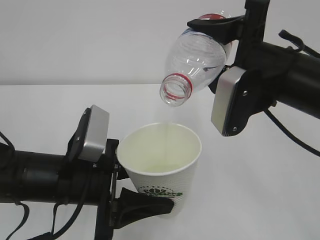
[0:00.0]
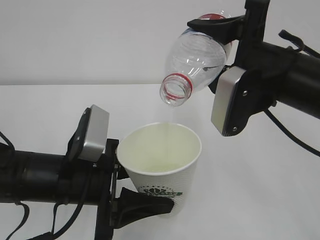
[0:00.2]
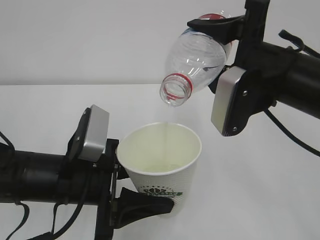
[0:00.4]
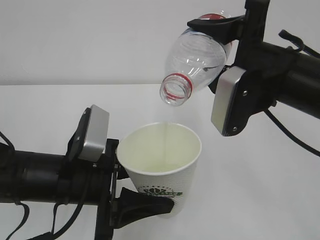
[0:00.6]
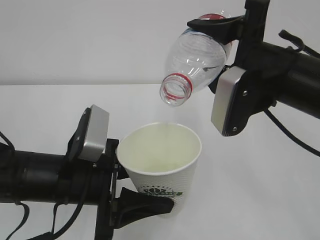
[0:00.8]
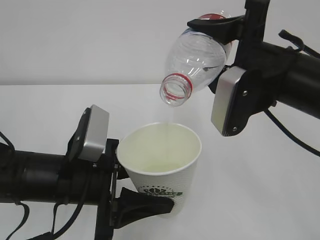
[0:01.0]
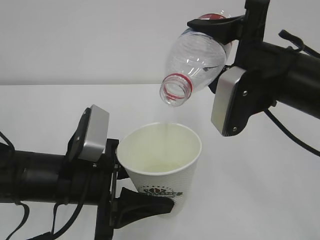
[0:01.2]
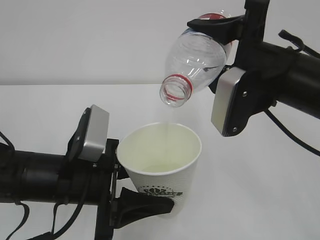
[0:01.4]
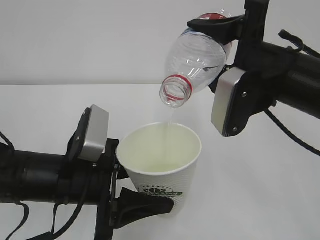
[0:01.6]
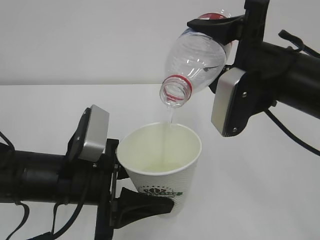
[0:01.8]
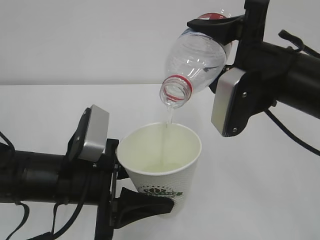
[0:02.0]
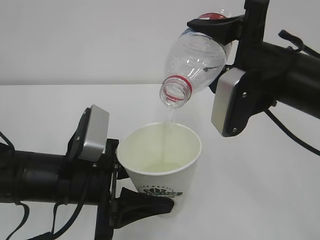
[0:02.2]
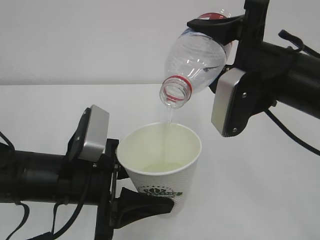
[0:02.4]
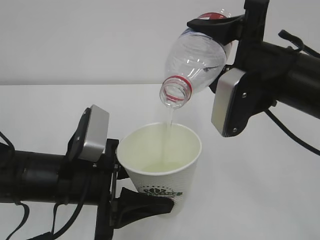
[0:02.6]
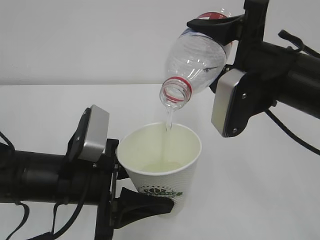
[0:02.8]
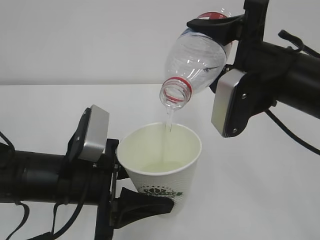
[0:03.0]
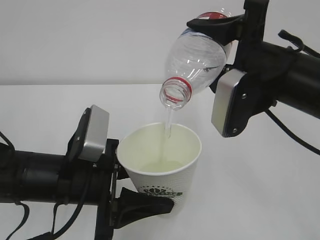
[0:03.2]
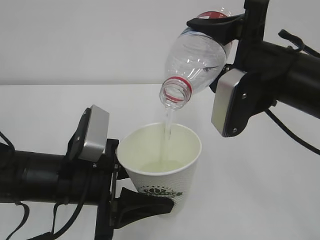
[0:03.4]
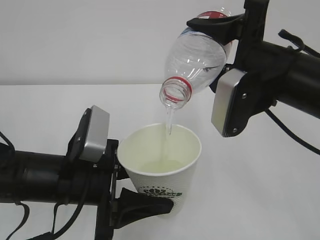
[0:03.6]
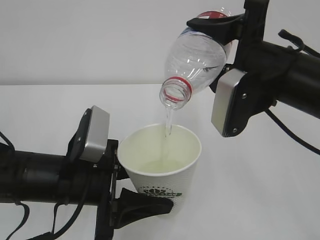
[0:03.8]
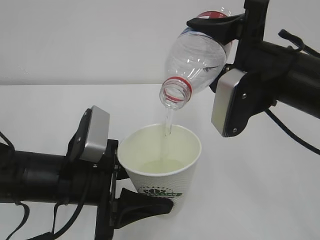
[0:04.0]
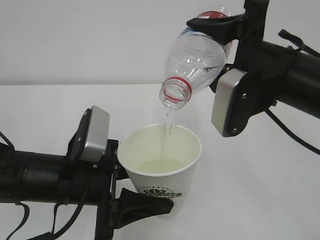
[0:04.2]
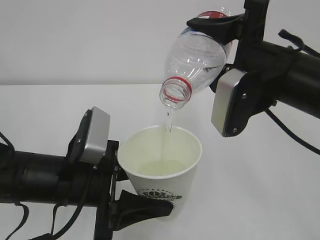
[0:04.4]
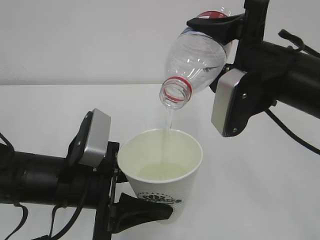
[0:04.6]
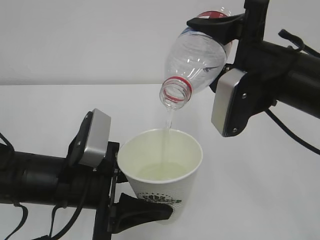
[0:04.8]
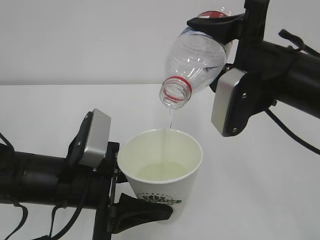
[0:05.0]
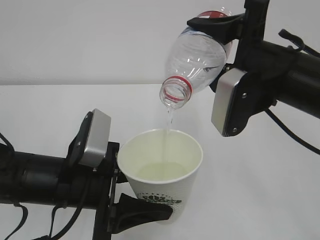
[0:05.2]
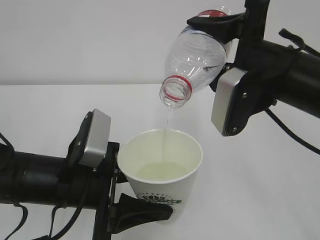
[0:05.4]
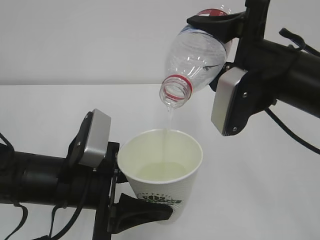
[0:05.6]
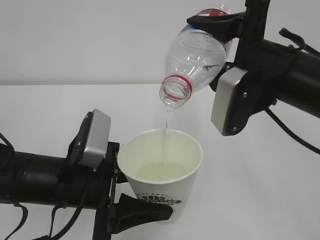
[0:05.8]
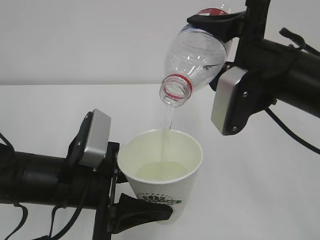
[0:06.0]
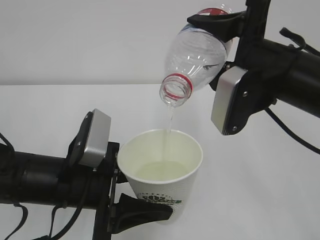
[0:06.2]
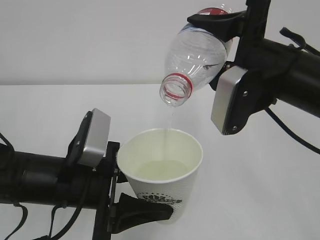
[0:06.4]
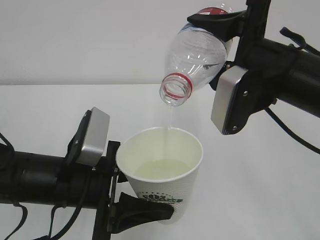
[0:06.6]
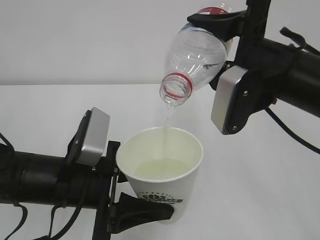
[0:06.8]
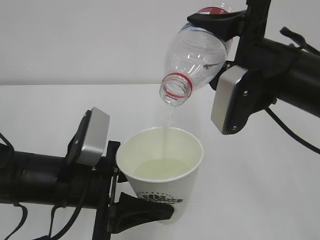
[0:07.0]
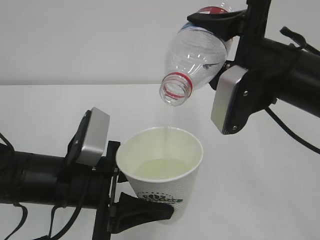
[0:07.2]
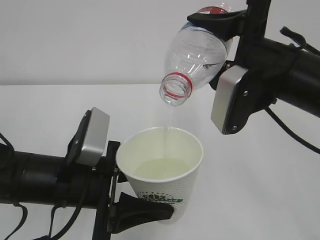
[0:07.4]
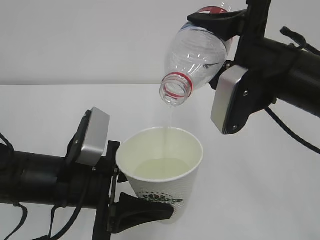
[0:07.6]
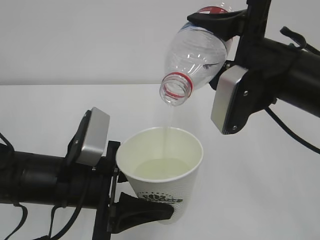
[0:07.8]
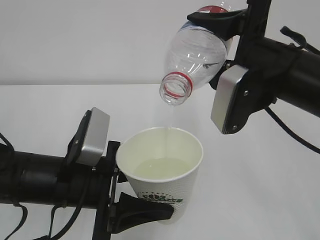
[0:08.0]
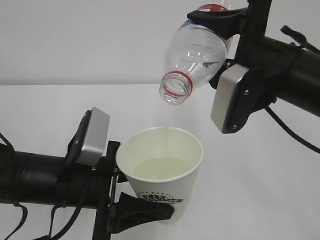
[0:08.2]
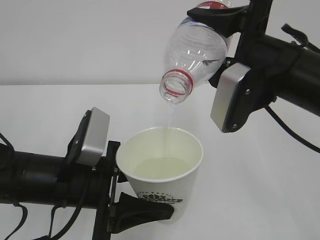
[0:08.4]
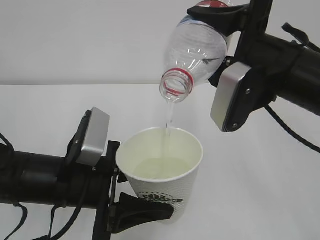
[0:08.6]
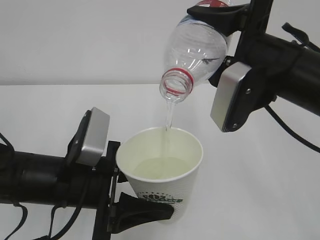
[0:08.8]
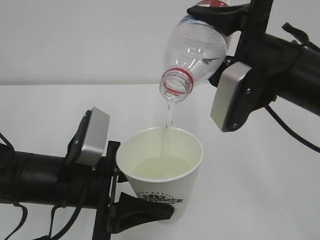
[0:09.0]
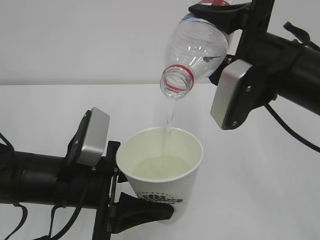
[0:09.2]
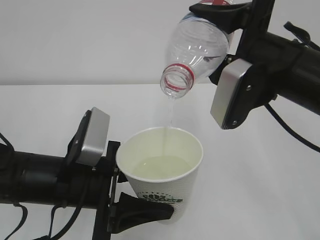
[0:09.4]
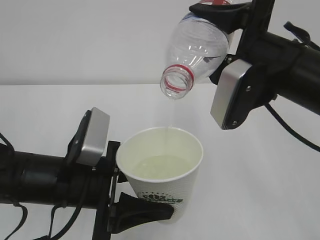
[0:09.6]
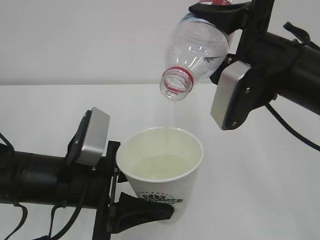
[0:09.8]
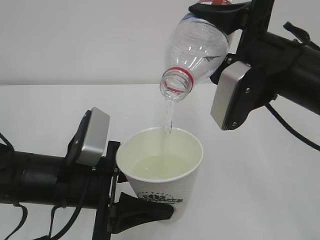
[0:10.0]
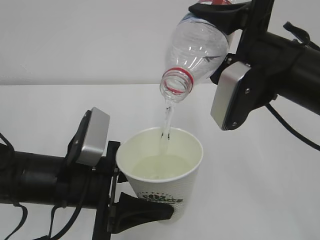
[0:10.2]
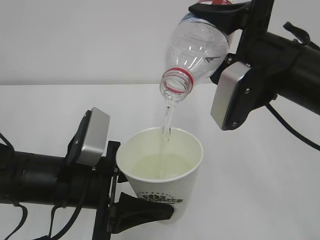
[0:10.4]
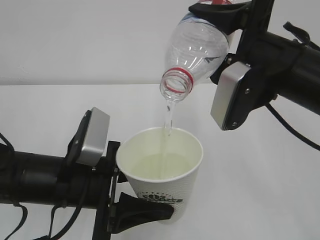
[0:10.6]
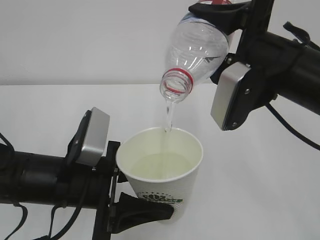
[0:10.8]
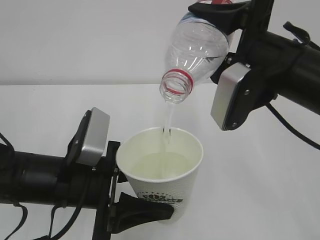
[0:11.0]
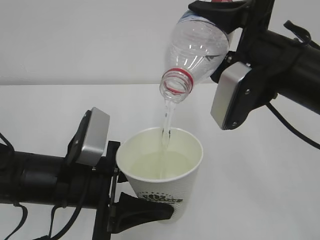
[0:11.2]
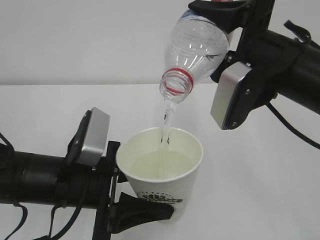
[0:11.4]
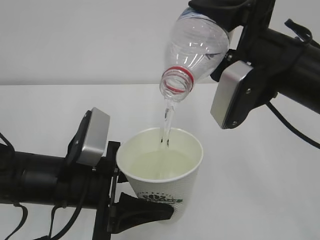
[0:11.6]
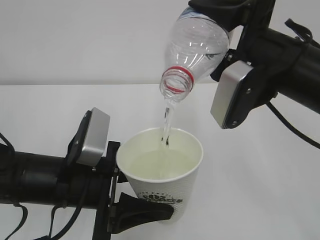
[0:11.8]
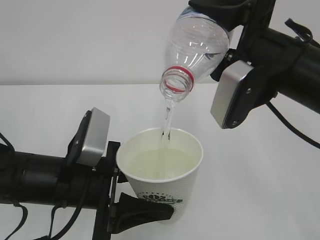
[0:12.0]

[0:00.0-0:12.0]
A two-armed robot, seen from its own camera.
0:00.0 to 0:07.6: Both grippers stay put.
0:07.6 to 0:10.4: Neither gripper changes place.
0:10.4 to 0:12.0: Both grippers stay about where they are.

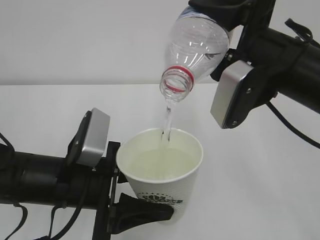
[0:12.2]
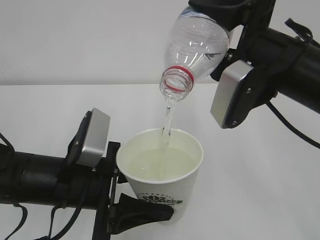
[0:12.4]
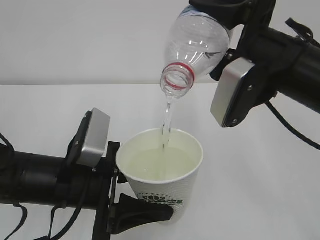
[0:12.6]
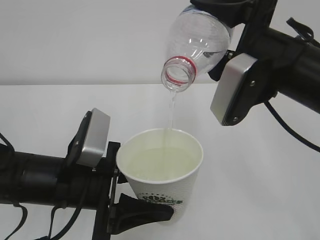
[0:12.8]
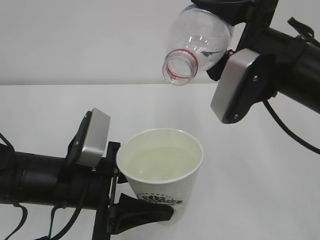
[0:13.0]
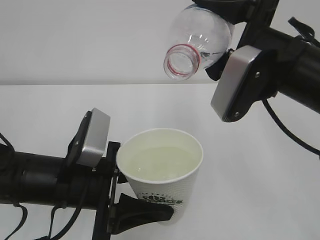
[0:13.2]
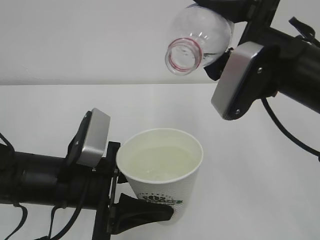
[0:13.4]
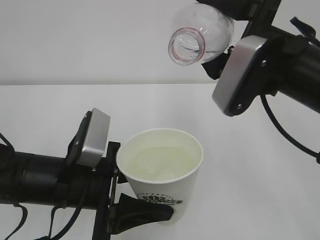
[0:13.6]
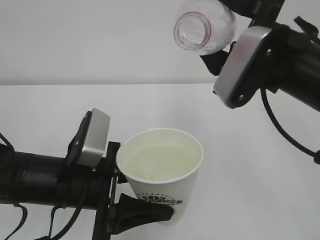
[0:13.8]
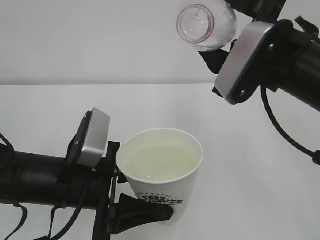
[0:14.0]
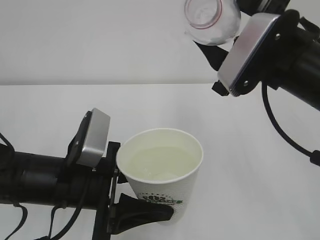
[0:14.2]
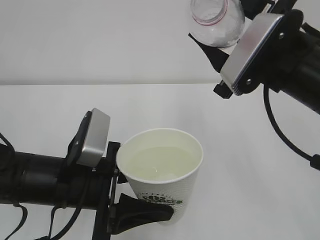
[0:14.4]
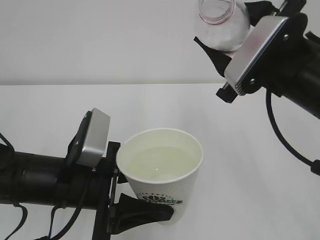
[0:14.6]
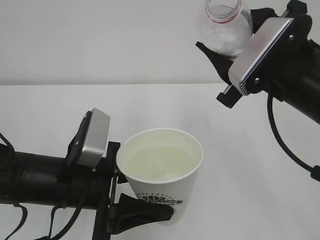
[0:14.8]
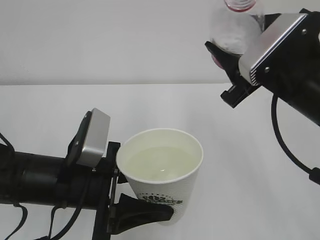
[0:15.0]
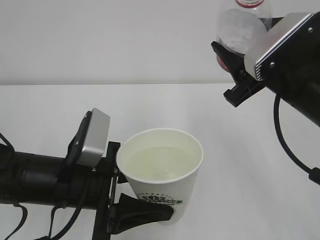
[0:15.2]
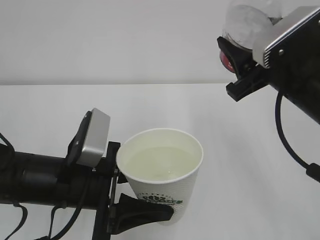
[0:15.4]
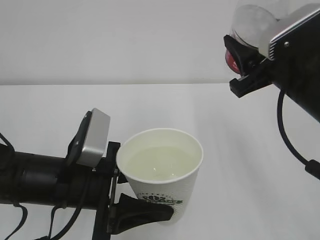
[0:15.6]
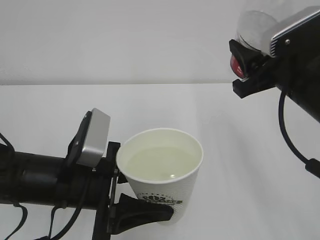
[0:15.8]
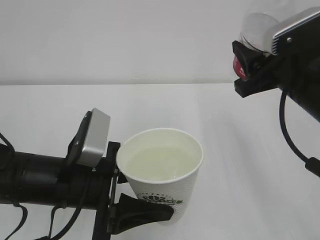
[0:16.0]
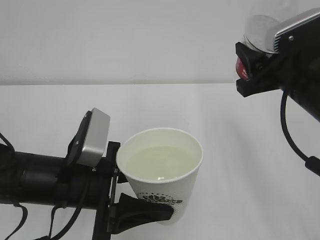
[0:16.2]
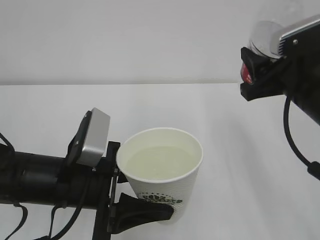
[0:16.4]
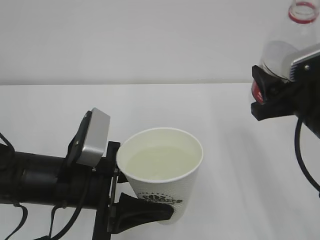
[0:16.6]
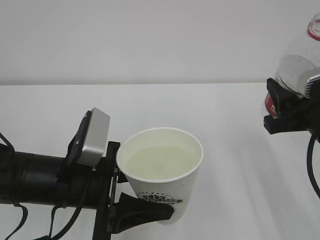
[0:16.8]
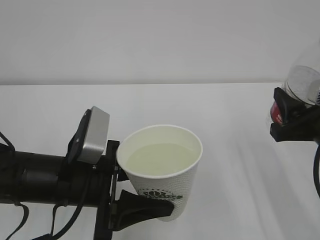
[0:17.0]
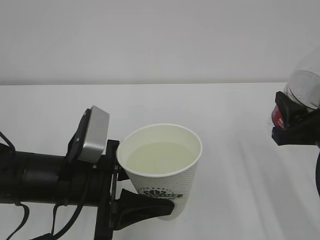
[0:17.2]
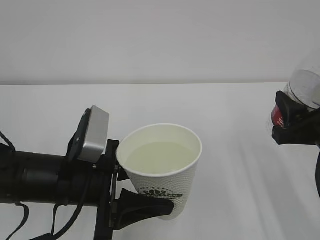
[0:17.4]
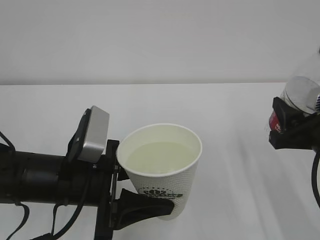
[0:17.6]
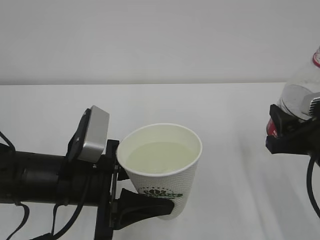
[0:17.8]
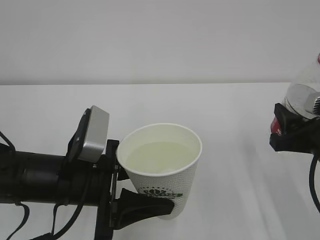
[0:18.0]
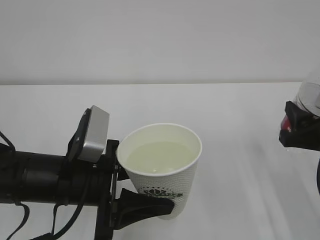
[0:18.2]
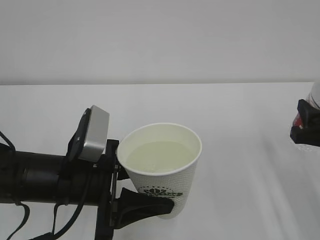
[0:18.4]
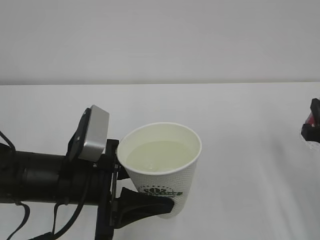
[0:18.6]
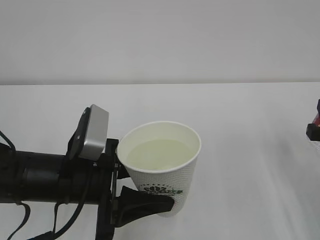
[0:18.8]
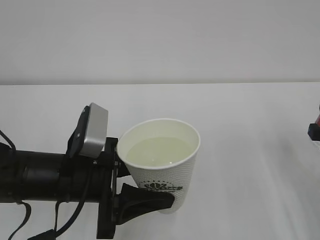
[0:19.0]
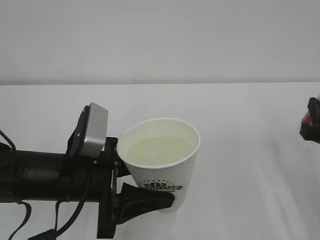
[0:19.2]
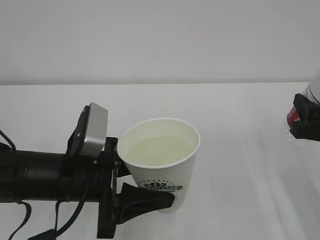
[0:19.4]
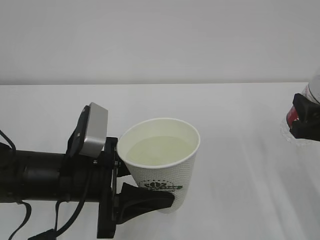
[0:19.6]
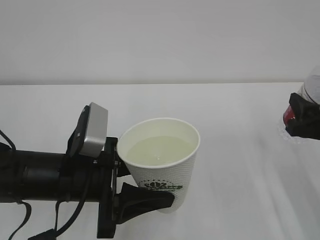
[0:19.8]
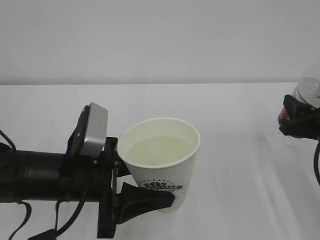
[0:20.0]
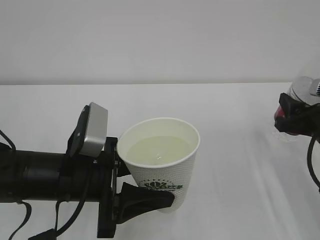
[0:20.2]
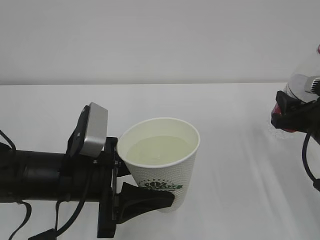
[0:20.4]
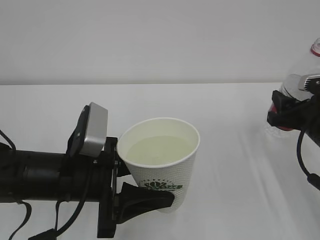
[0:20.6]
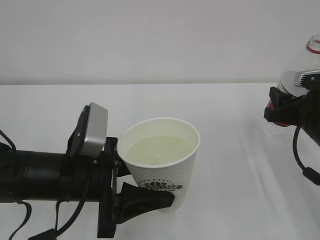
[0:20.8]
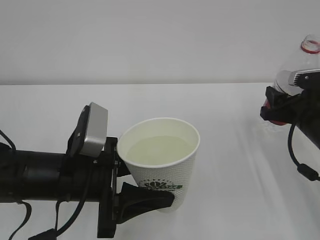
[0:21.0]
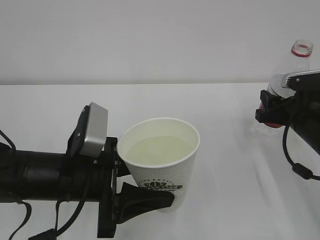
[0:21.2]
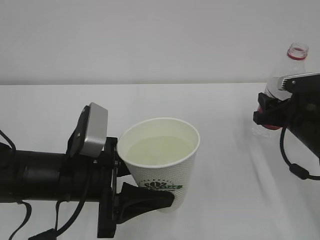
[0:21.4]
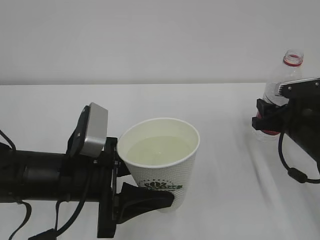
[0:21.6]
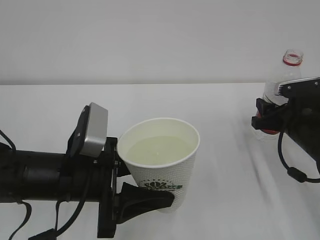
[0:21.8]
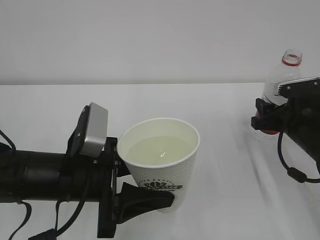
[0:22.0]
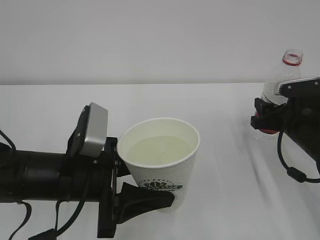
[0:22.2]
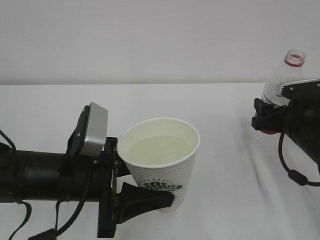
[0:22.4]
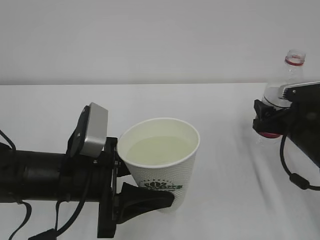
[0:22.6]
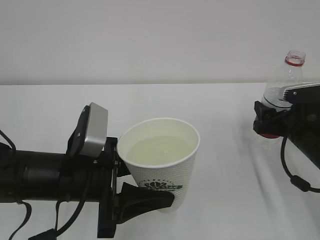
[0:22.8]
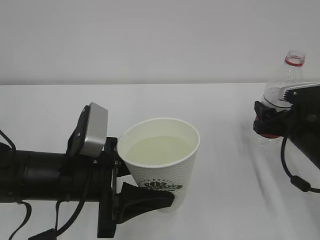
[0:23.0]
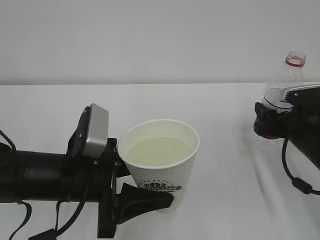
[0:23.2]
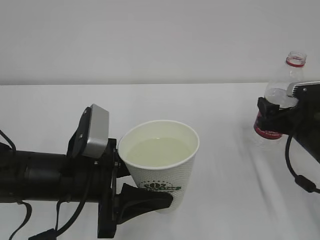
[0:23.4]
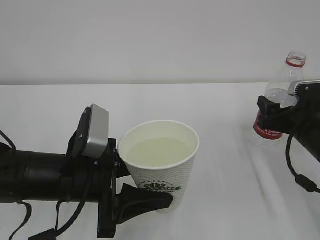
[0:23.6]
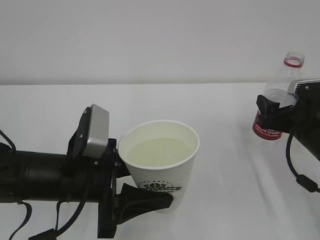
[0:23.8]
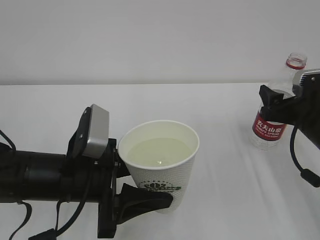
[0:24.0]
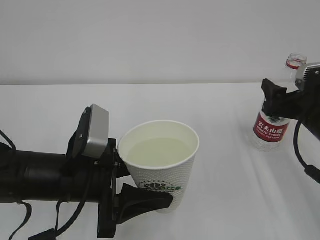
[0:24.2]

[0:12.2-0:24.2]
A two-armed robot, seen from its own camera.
0:15.2 to 0:16.6: The right gripper moves roughly 5 cm.
0:16.6 to 0:18.2: The right gripper shifts by some 5 cm.
0:18.2 to 0:19.8: The grippers make only small movements.
0:19.8 to 0:21.2: The right gripper is displaced forward by some 10 cm.
0:21.2 to 0:22.6: The right gripper opens up.
0:22.6 to 0:24.2: The right gripper moves upward, roughly 5 cm.
